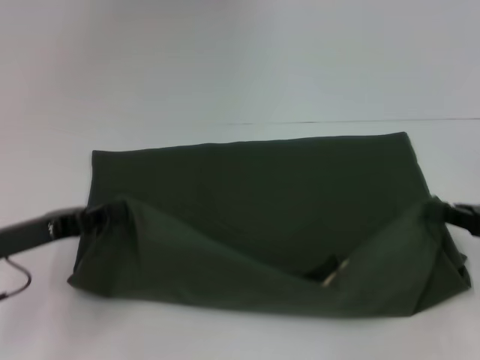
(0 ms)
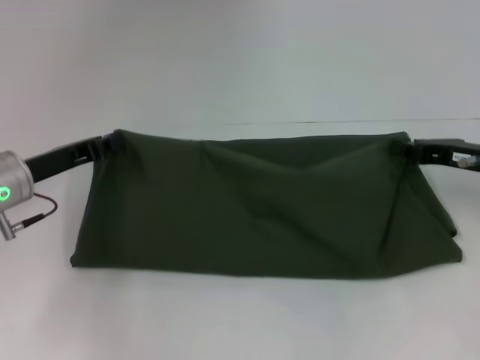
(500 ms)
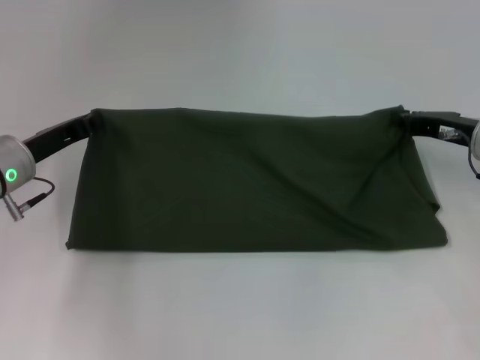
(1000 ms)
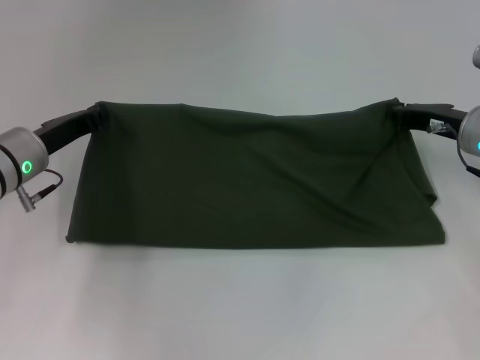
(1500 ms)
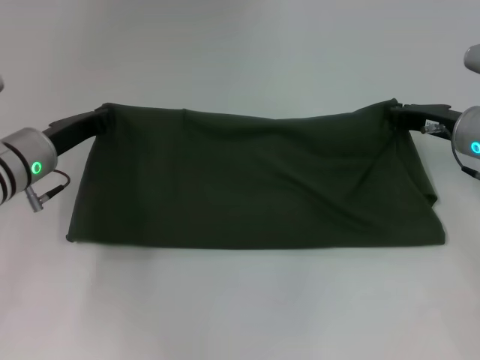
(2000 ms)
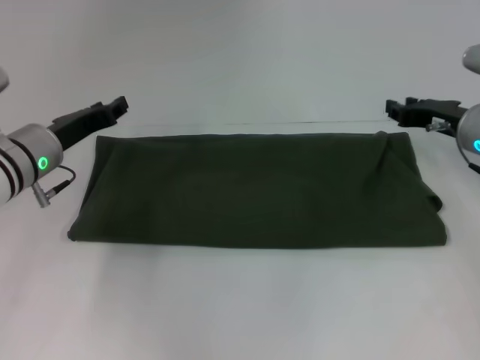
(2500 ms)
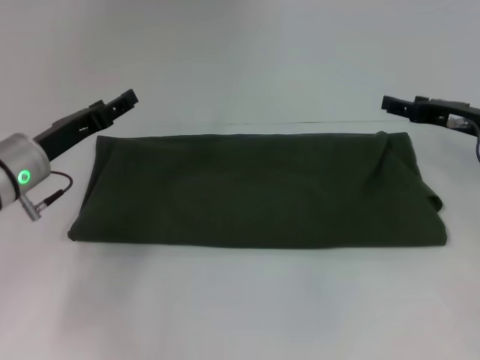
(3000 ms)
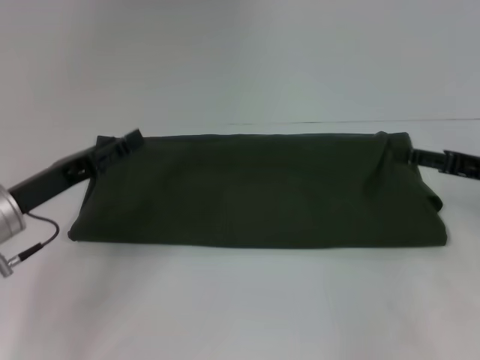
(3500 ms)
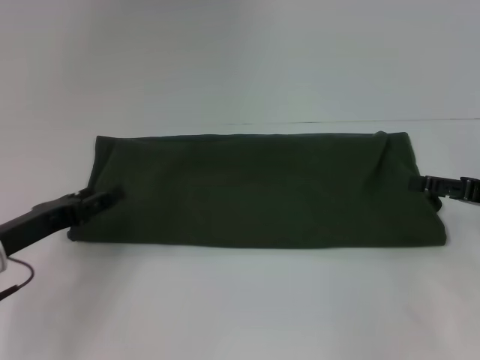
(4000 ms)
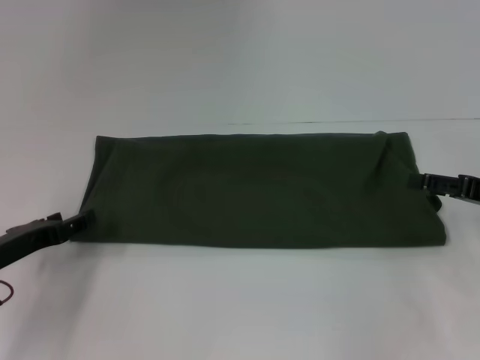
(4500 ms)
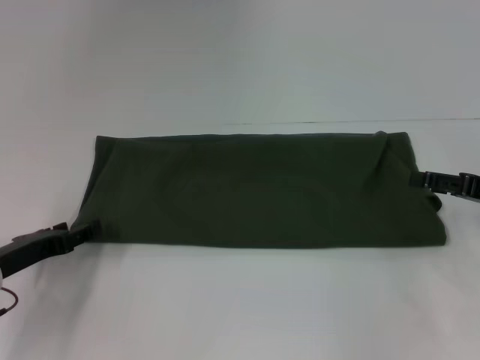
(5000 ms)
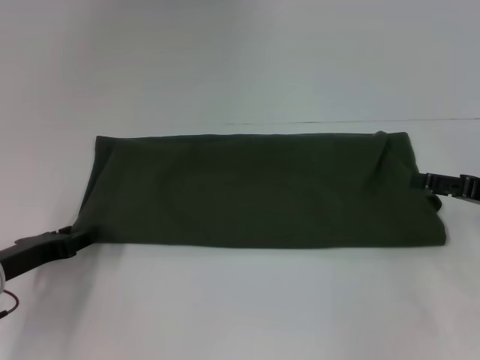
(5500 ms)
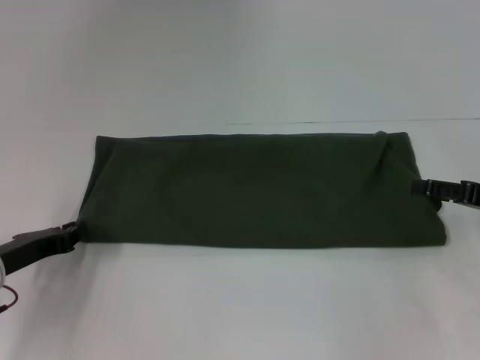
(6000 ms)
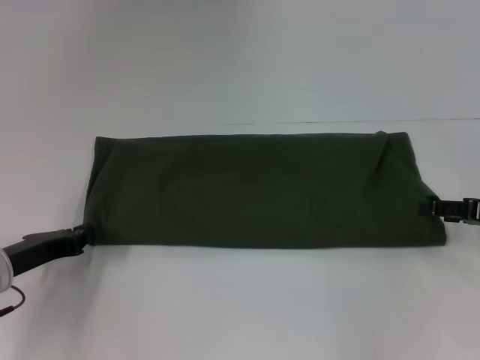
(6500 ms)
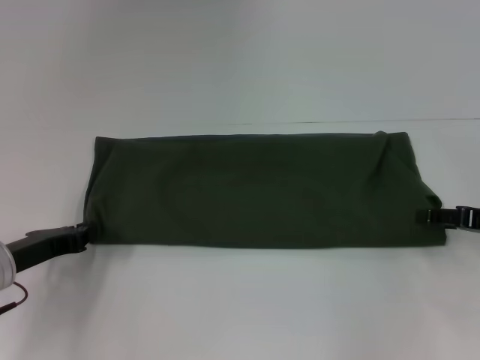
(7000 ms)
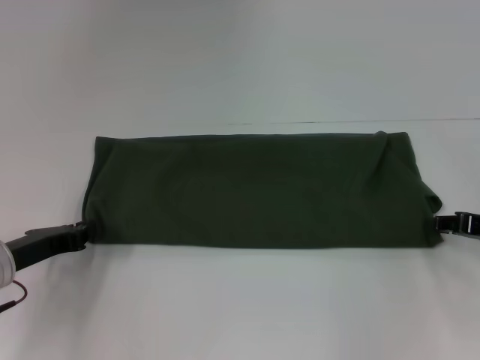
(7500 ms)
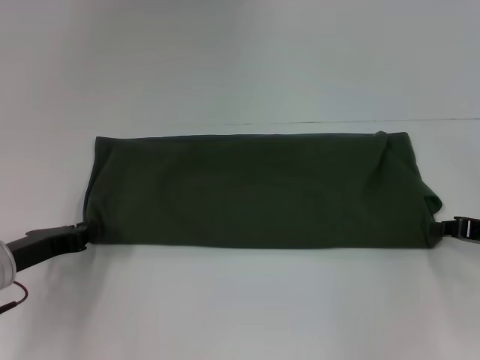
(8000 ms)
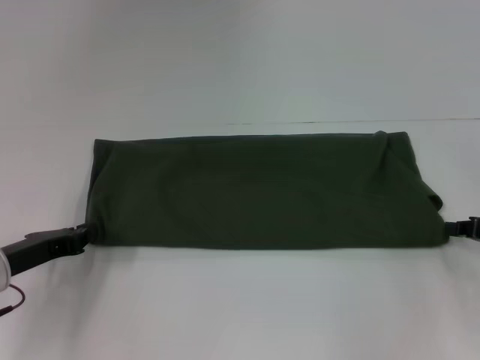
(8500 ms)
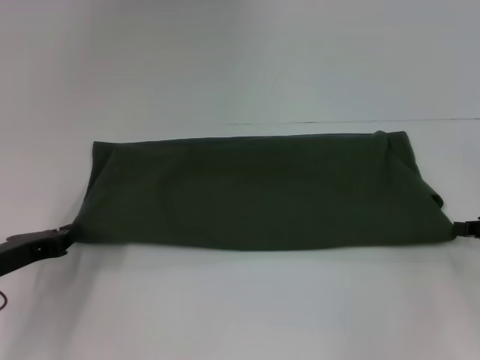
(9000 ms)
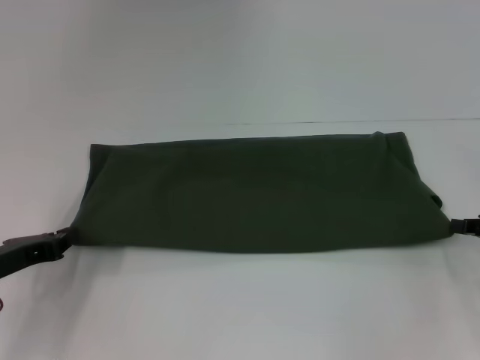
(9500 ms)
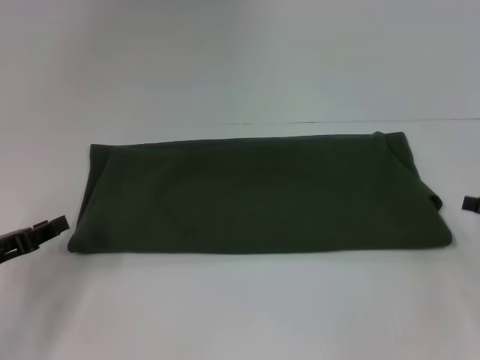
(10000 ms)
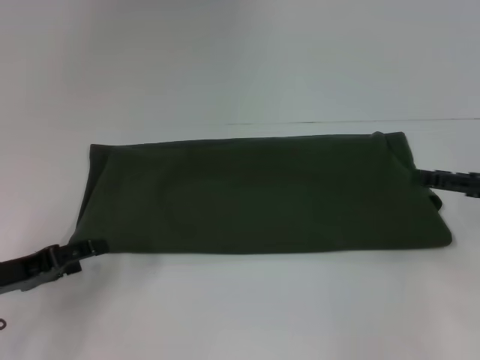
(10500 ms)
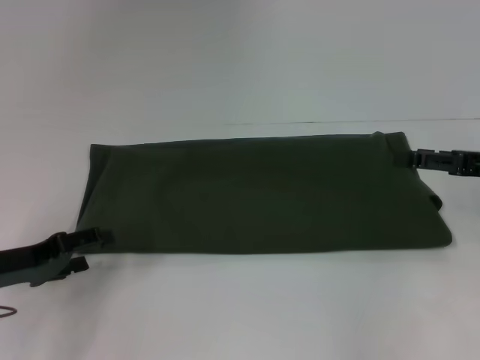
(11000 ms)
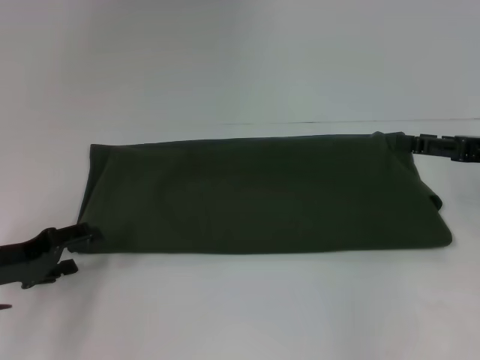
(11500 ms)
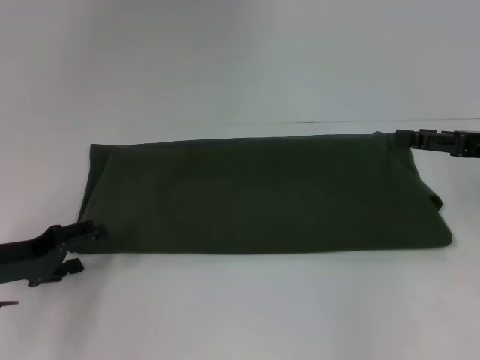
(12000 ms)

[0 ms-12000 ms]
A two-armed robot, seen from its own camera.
Step, 0 ms to 2000 ms: Fold the clothes with your right hand.
0 ms to 2000 ms: The left gripper heads forward, covering about 10 cm. The right gripper is displaced forward and to the left by about 15 cm.
2000 ms to 4000 ms: The left gripper moves backward, approximately 10 cm, and opens its fingers. The right gripper travels backward and to the right by approximately 10 cm, and opens.
4000 ms to 6000 ms: The left gripper closes.
6000 ms to 8000 ms: The right gripper closes its fingers.
8000 ms to 10000 ms: The left gripper ends up roughly 5 cm from where it was. Meanwhile the right gripper moves roughly 5 cm.
10000 ms to 12000 ms: The left gripper opens. Meanwhile the right gripper goes approximately 10 cm upward and to the left, and opens.

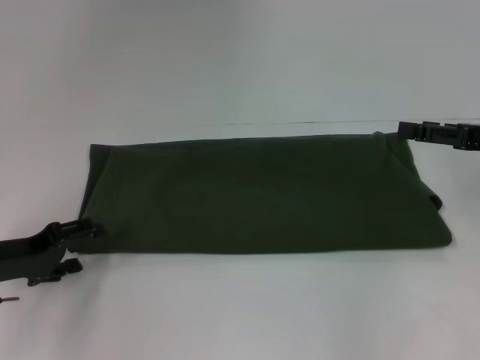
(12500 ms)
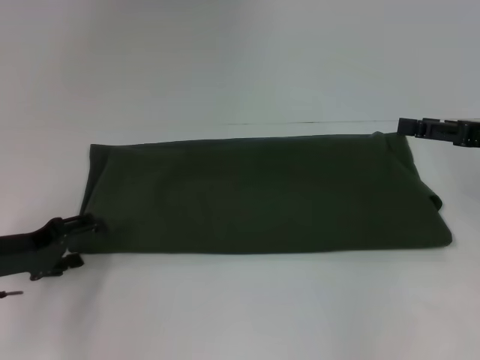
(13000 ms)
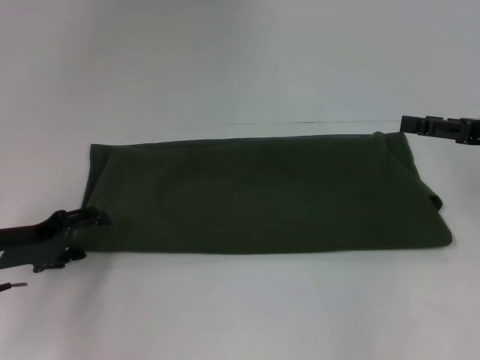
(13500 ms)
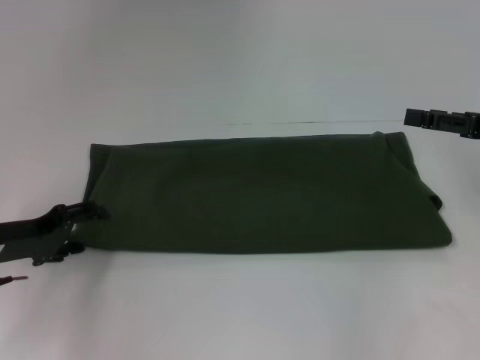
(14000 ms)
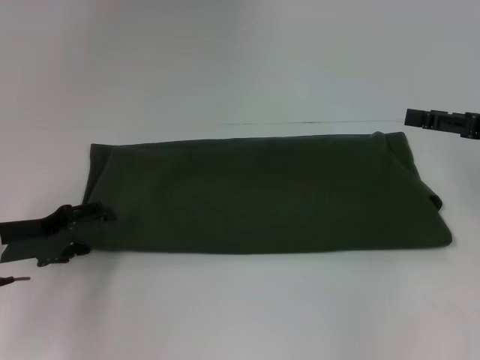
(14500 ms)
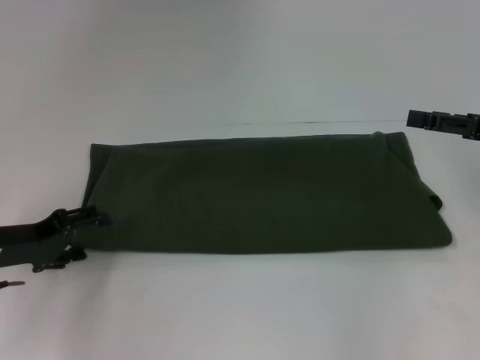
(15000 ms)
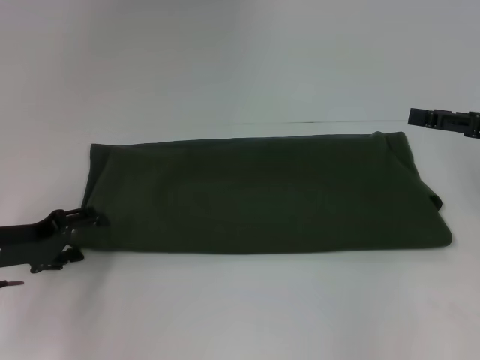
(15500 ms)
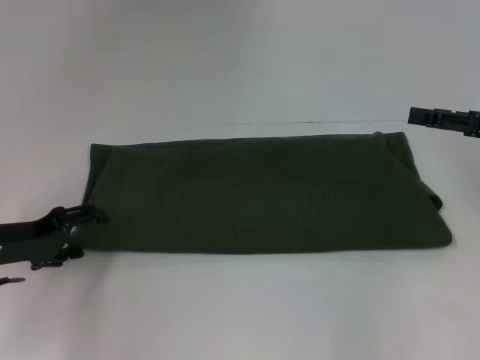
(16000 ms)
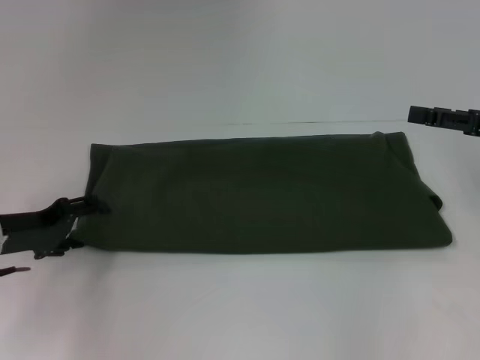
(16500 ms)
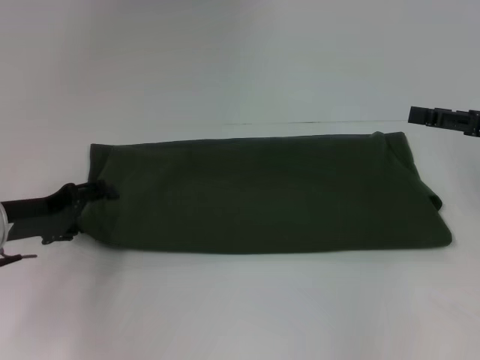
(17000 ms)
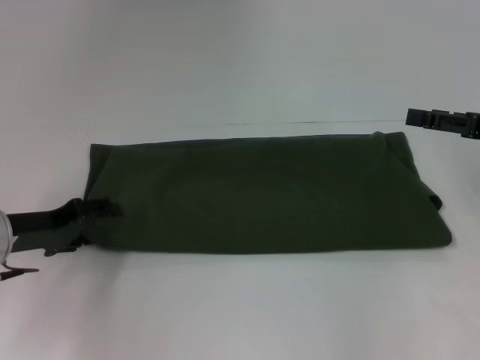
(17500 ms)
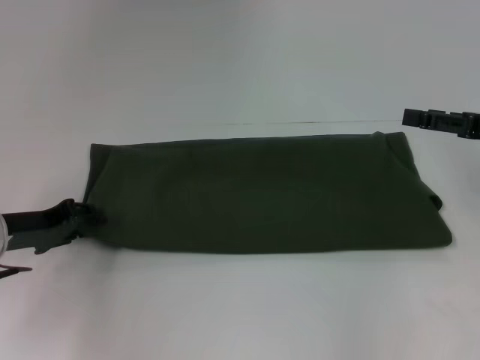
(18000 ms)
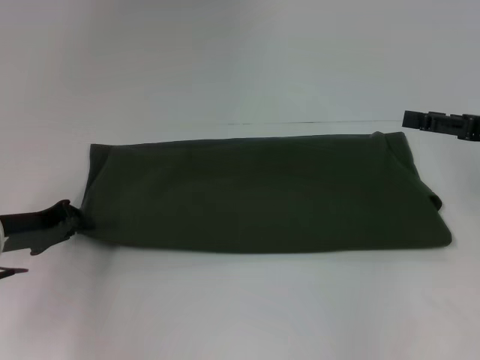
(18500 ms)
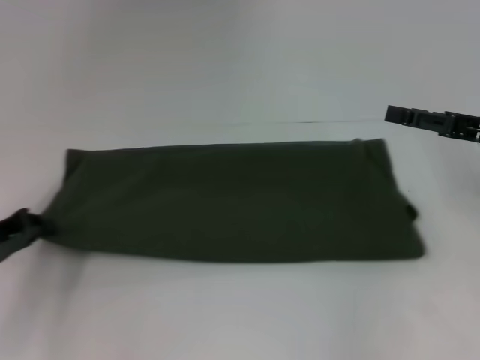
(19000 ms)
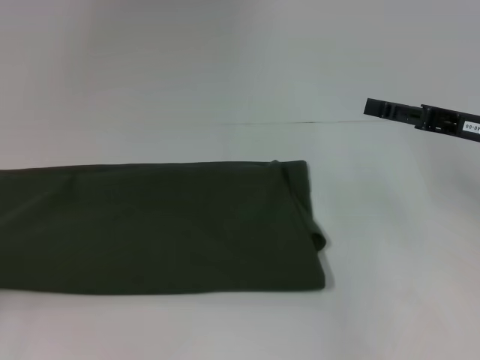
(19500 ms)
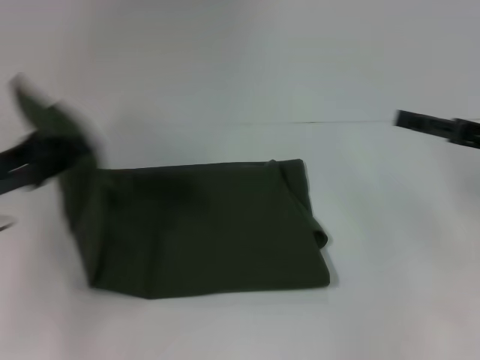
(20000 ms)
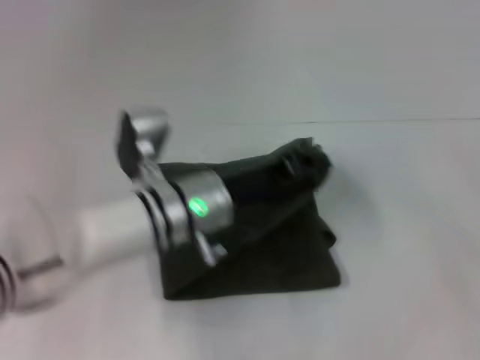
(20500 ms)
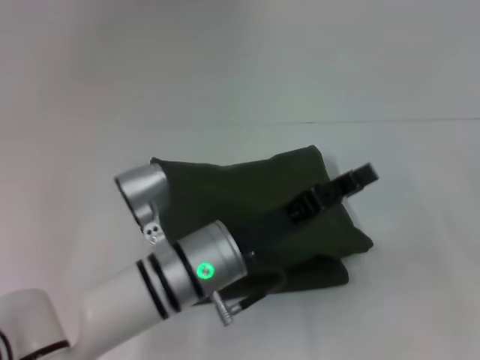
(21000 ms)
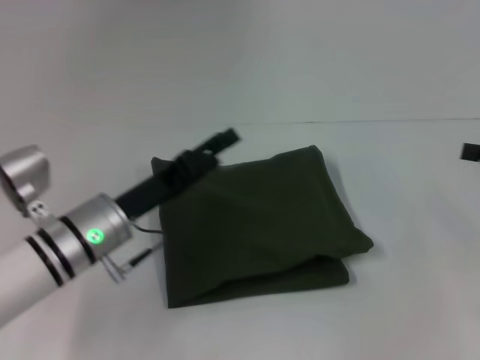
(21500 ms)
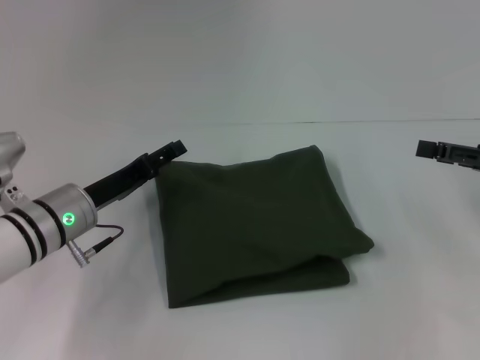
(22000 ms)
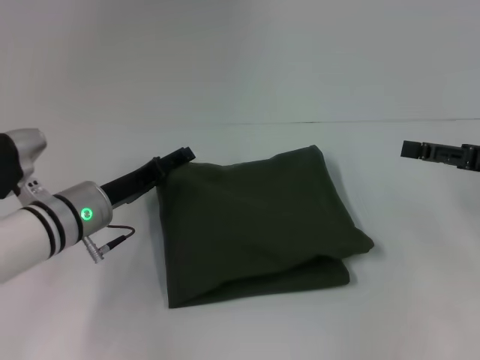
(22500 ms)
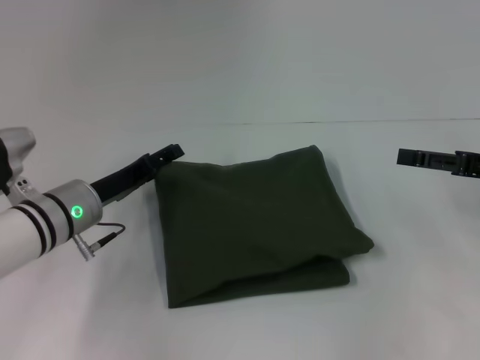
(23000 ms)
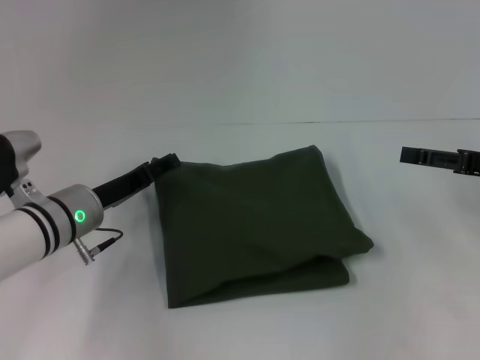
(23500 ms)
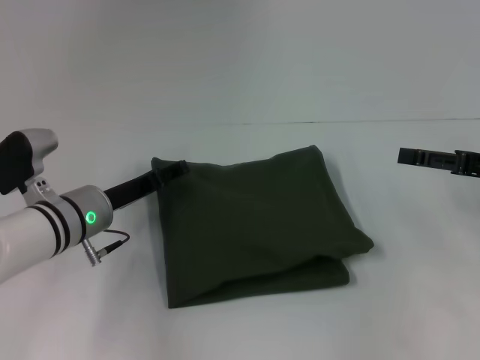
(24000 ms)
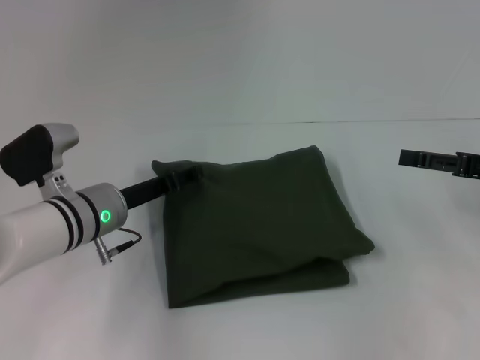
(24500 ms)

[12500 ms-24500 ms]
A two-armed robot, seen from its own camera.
Step, 12500 ms to 20500 ms: Fold the clothes with your left hand.
12500 ms to 14500 ms: There are only small adjustments of the grippers.
14500 ms to 16500 ms: Neither gripper changes place.
16500 ms to 18500 ms: The left gripper closes up.
18500 ms to 20500 ms: The right gripper shifts about 10 cm to the right and backward. The left gripper heads to the right, covering roughly 25 cm.
20500 ms to 22500 ms: The left gripper travels to the left by some 10 cm, and opens. Meanwhile the right gripper moves to the left and forward, approximately 10 cm.
22500 ms to 24500 ms: The grippers move only a little.

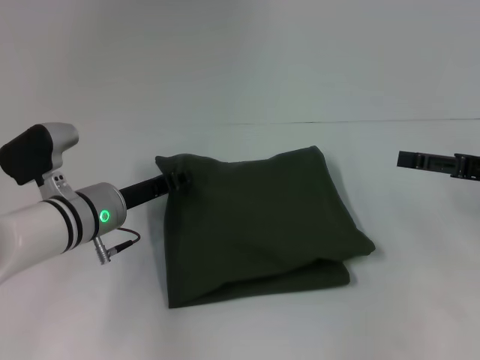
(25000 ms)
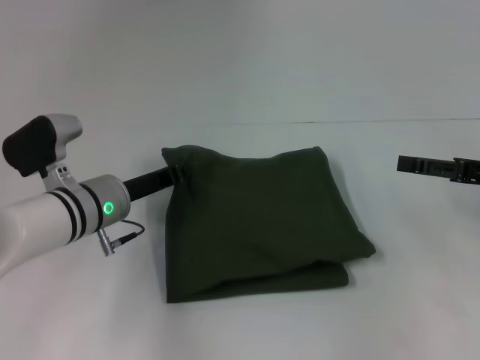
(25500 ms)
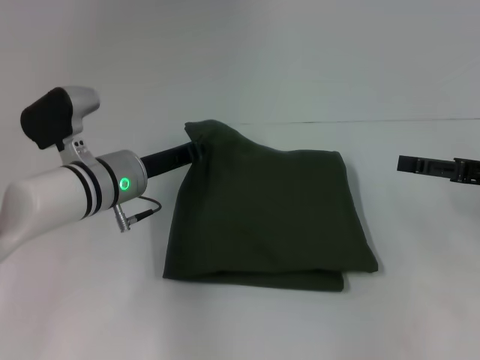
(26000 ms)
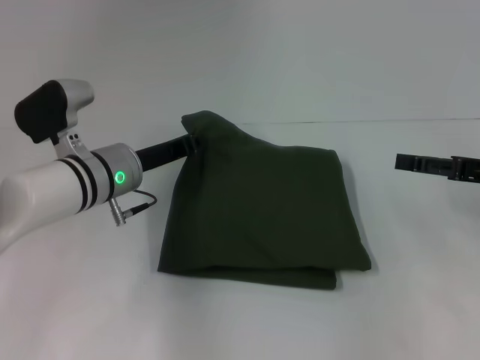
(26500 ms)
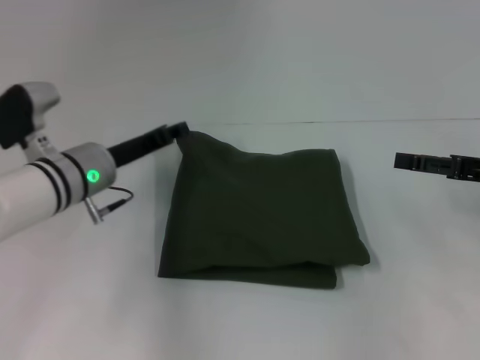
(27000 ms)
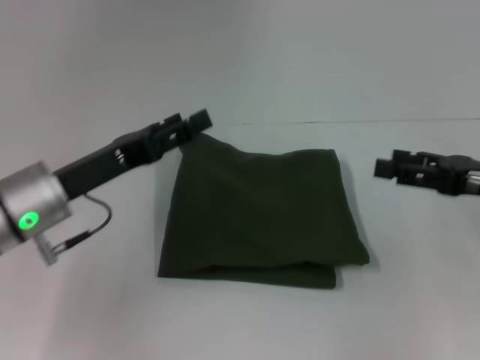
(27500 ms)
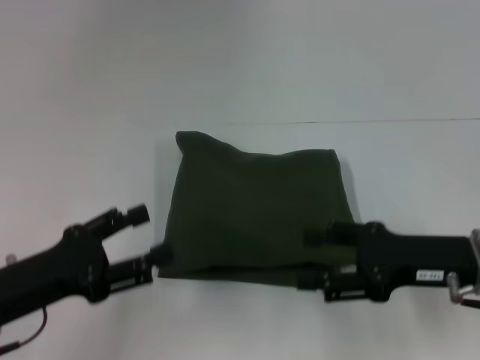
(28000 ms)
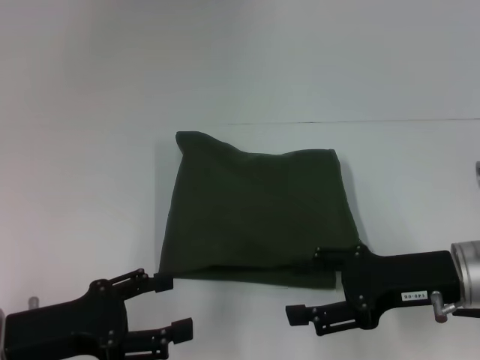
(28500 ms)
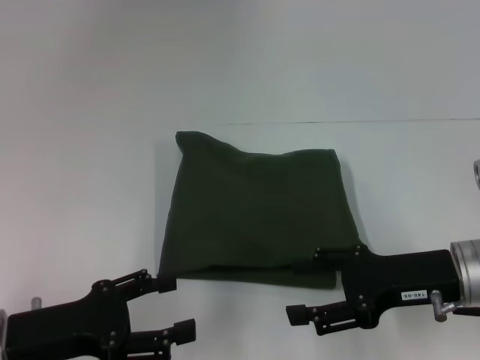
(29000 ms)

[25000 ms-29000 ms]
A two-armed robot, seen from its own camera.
25000 ms to 27000 ms: The grippers move only a little.
27000 ms to 29000 ms: The right gripper is displaced to the left and backward by some 10 cm. Meanwhile the left gripper heads backward, covering roughly 20 cm, and opens its fingers.
